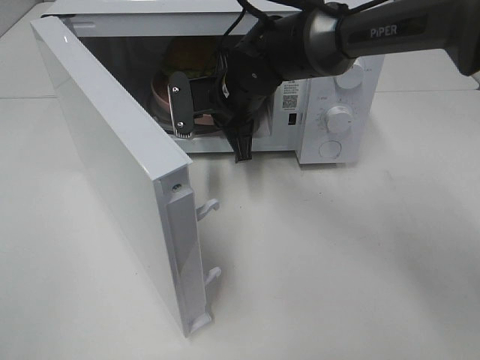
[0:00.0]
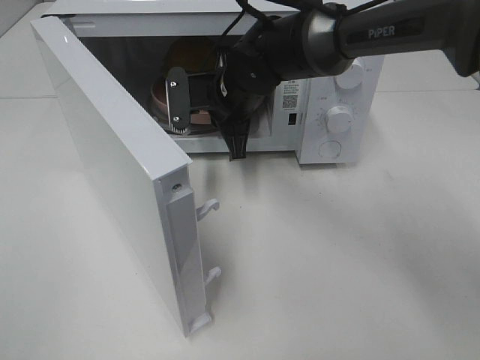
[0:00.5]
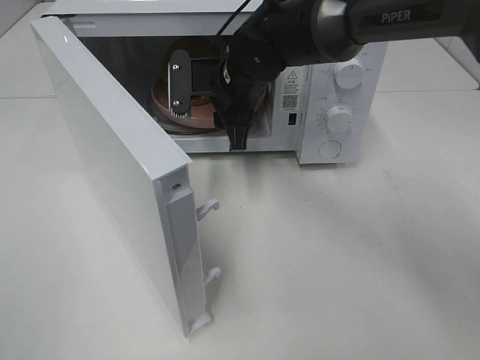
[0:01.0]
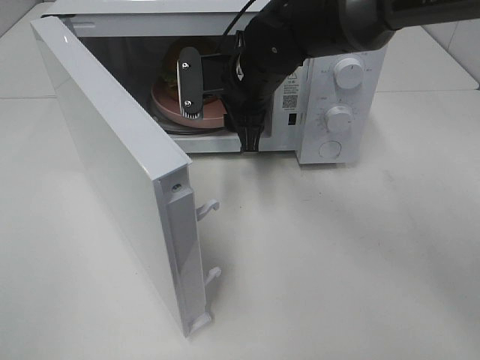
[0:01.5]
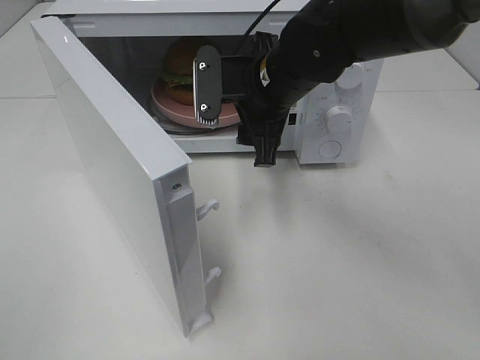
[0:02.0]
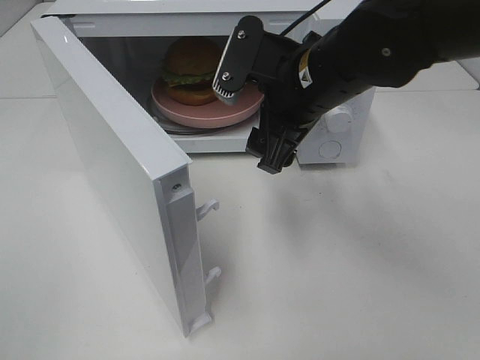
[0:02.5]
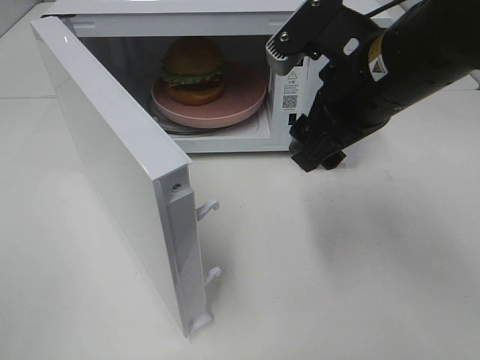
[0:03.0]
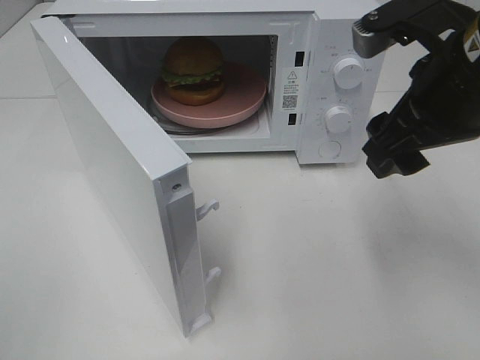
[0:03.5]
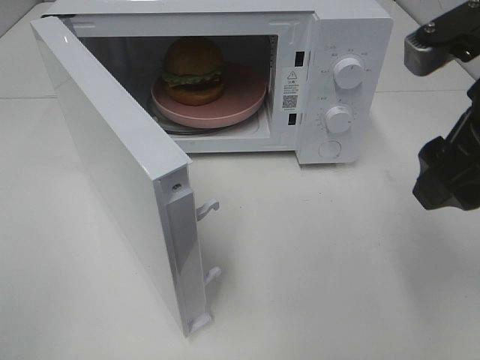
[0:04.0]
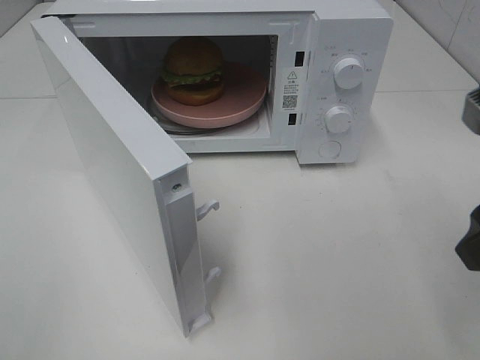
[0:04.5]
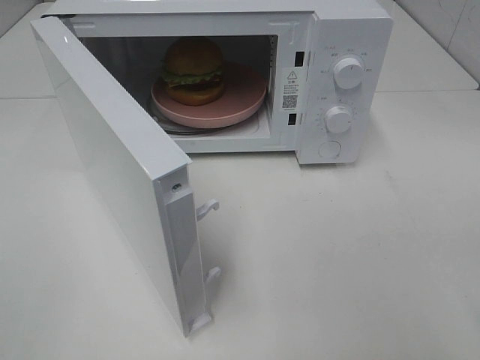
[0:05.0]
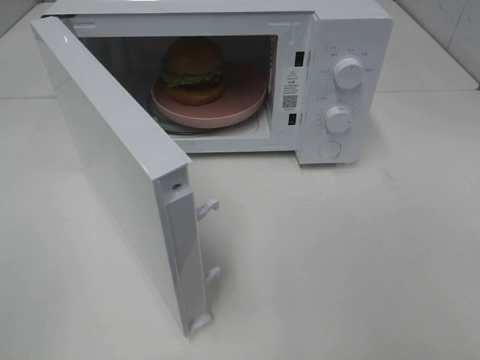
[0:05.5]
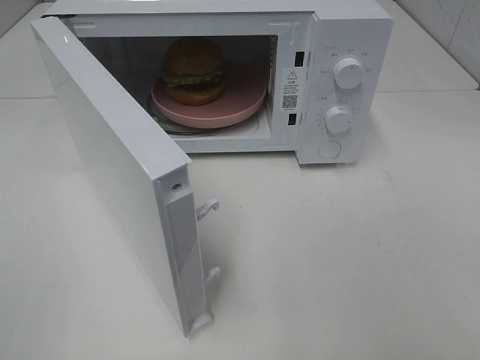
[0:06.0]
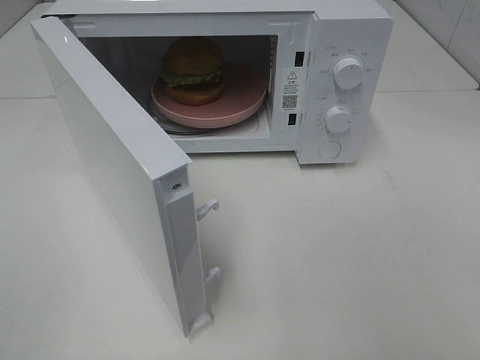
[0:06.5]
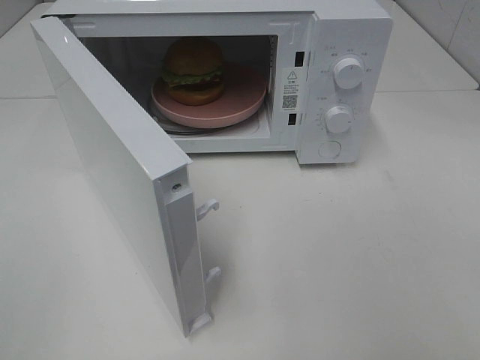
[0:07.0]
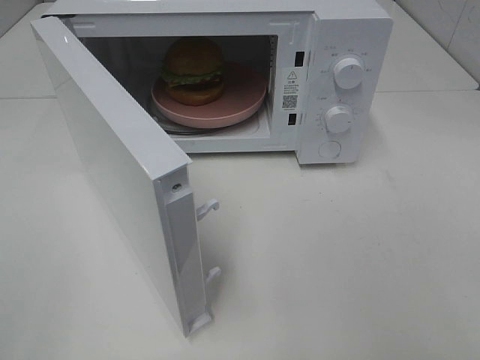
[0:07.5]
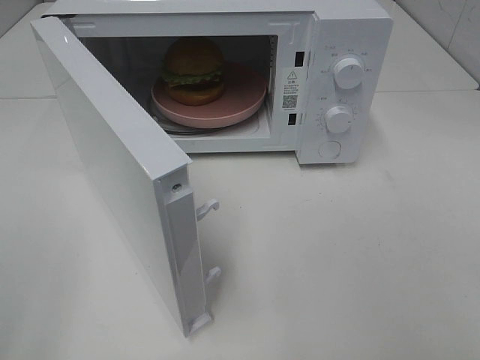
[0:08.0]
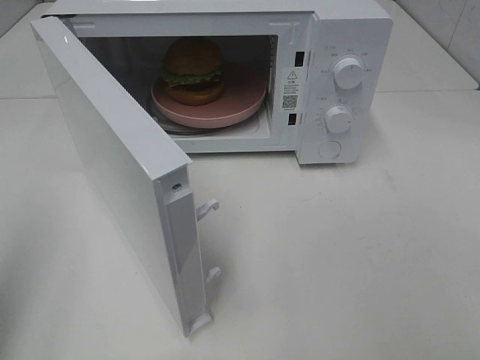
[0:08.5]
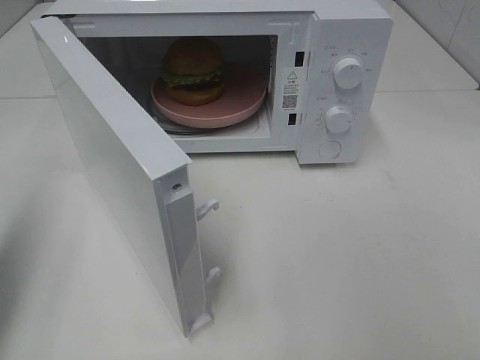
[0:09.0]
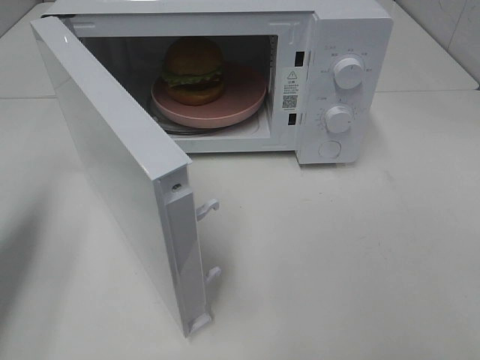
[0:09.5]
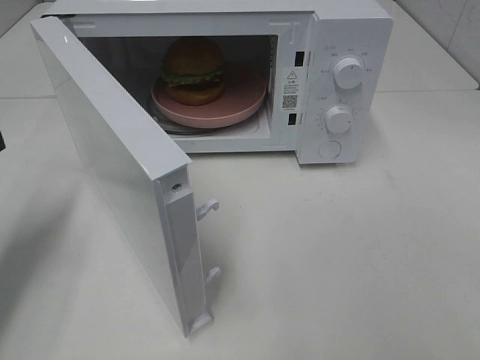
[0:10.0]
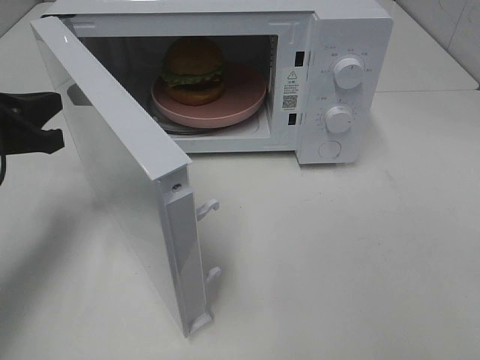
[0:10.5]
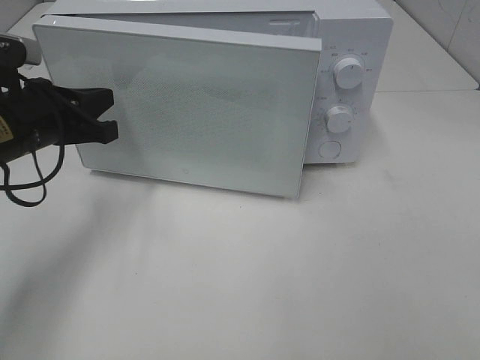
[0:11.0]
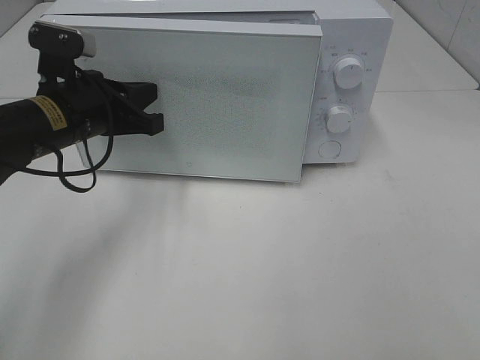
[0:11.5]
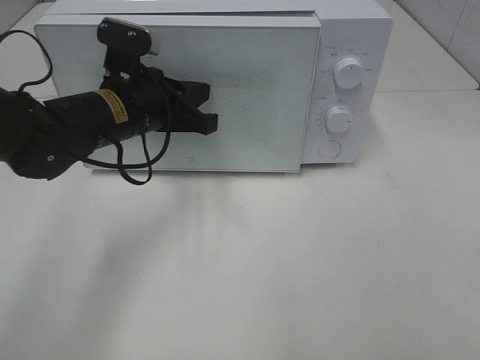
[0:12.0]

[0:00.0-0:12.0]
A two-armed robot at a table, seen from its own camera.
Task of the whole recording: Heat the burger.
0:00.0 to 0:02.0: The right gripper moves backward, some 5 cm, and opens its fingers.
0:02.0 to 0:04.0: The right gripper goes roughly 25 cm backward, to the right and upward.
0:04.0 to 0:06.0: The right gripper shifts about 20 cm backward and to the right.
0:08.0 to 0:10.0: The left gripper shifts some 25 cm forward and downward, and closes up.
0:10.0 to 0:12.0: The left gripper shifts some 20 cm to the right and forward.

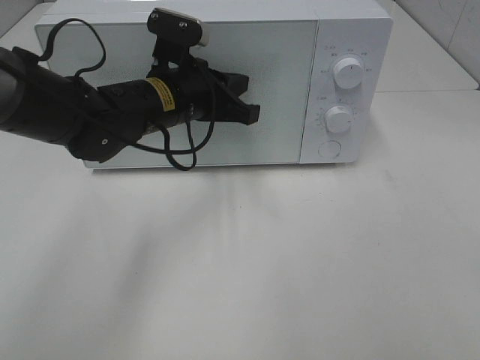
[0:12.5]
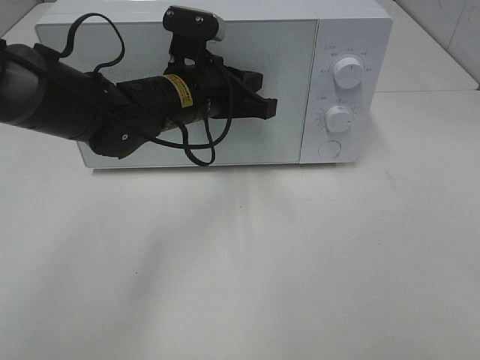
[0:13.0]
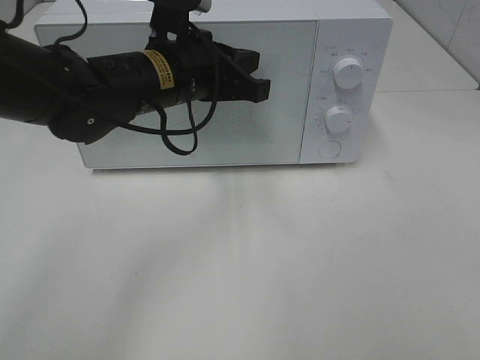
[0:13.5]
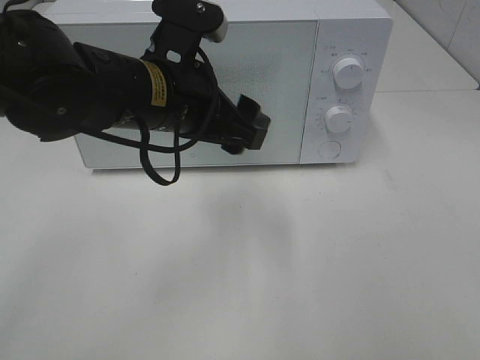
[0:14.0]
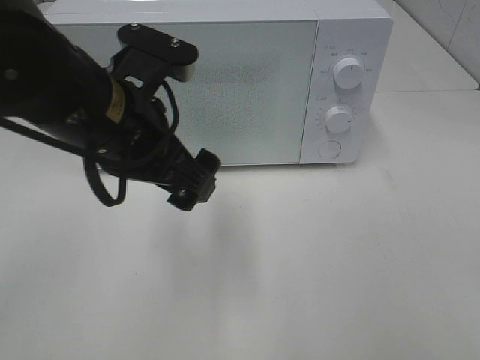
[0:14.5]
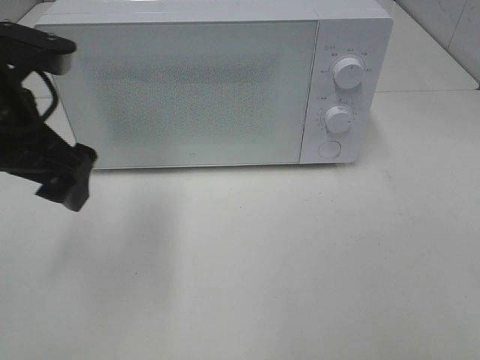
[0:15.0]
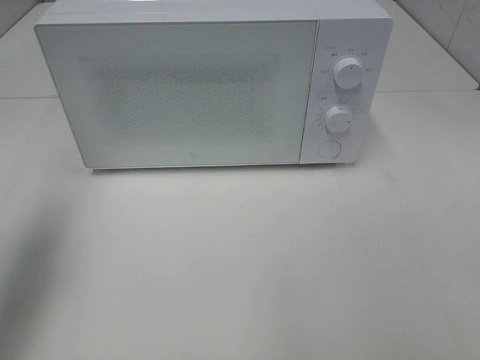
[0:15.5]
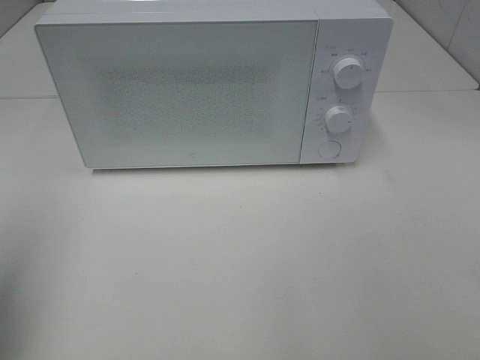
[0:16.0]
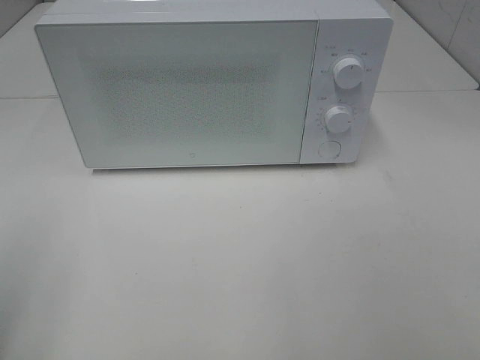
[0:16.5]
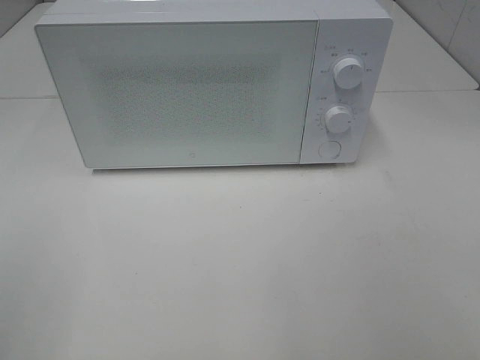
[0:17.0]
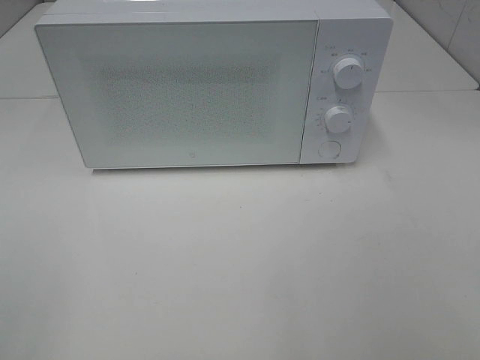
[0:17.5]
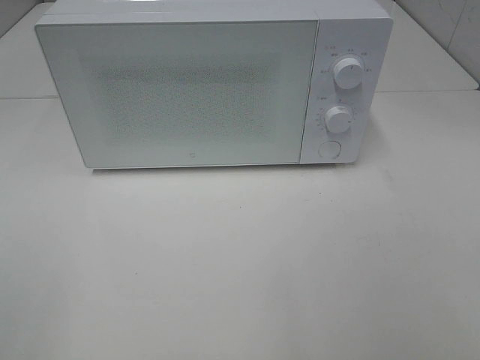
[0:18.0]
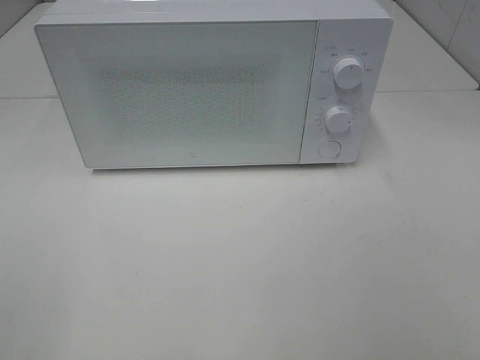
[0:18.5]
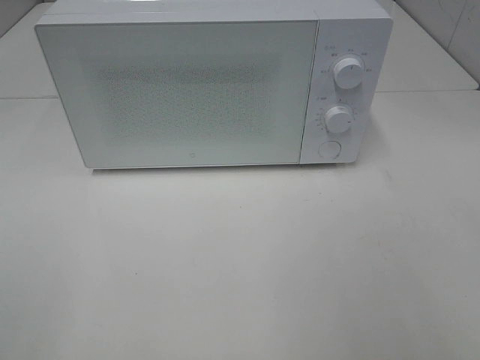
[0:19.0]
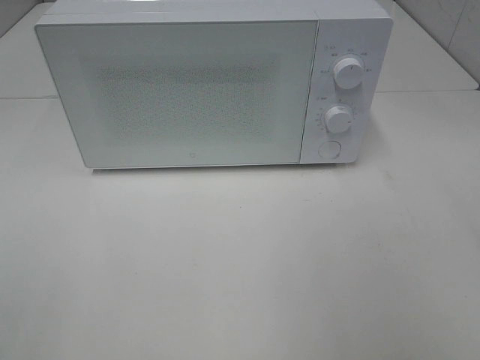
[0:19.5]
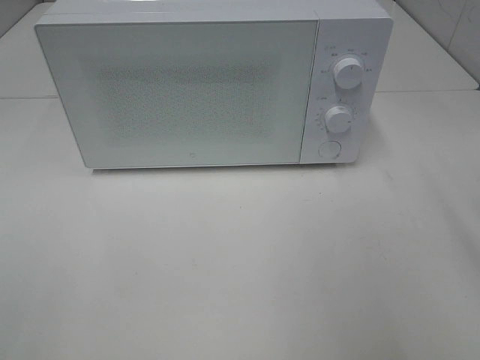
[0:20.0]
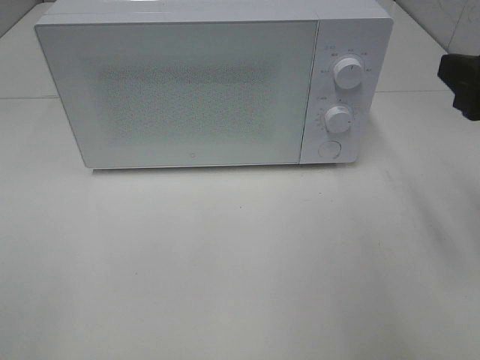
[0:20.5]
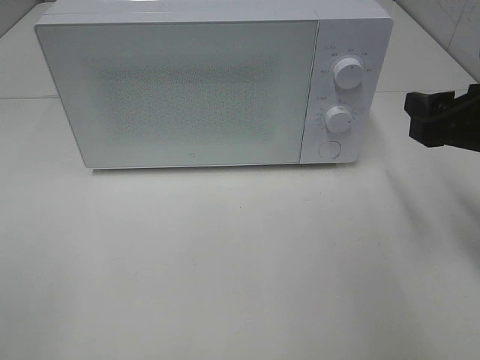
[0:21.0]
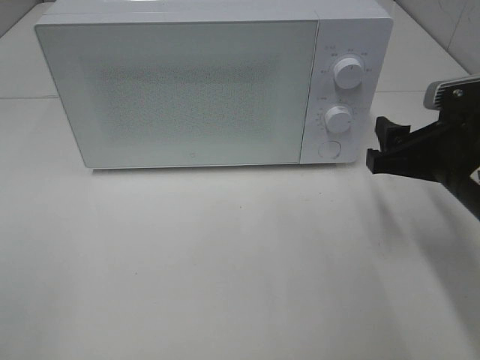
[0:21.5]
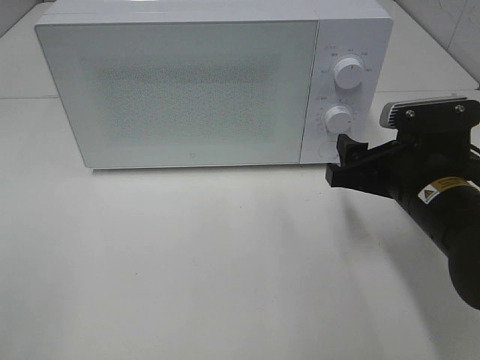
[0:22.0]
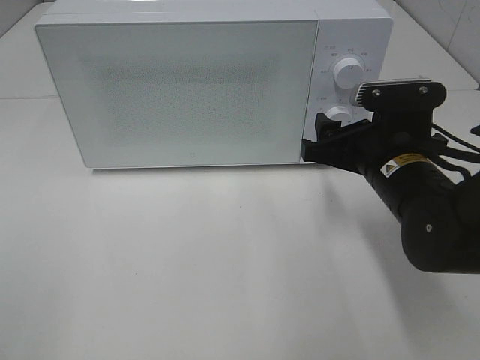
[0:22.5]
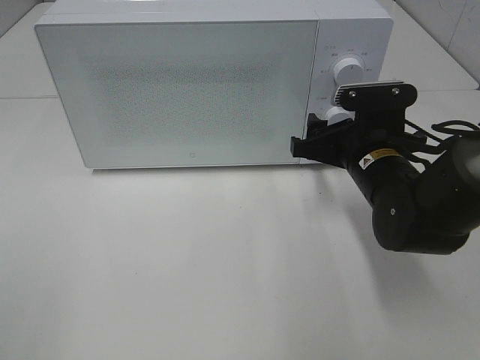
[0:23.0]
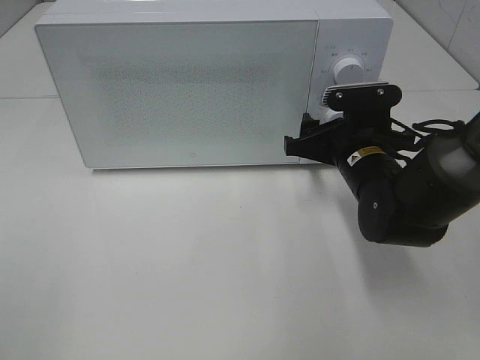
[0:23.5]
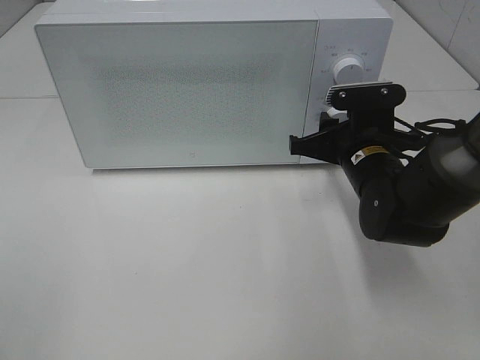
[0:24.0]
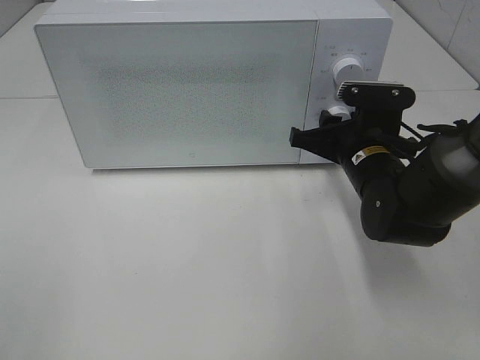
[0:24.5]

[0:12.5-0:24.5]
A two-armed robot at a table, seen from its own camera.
Task of the whole recording: Heat the burger.
0:12.5 to 0:14.5: The left gripper heads backward and upward, covering about 15 cm, and opens up.
0:14.5 to 0:16.5: The left gripper moves to the left and backward, some 25 cm.
0:18.5 to 0:20.5: The right gripper heads forward, covering roughly 20 cm.
0:20.5 to 0:22.5: The right gripper heads downward, to the left and forward, covering approximately 15 cm.
0:22.5 to 0:24.5: The right gripper moves roughly 5 cm.

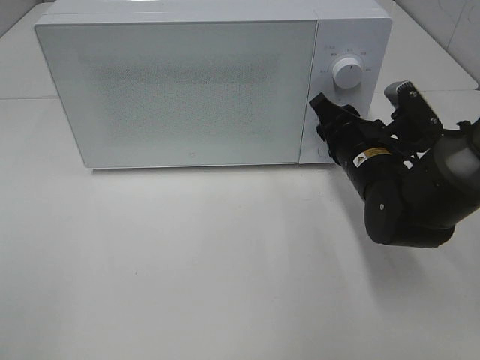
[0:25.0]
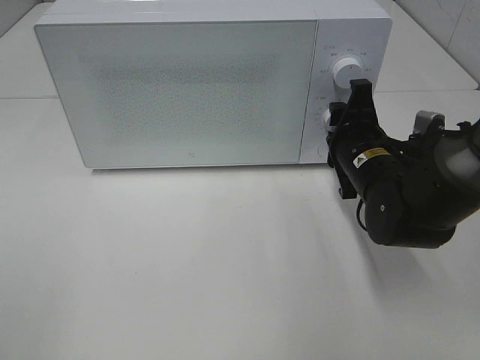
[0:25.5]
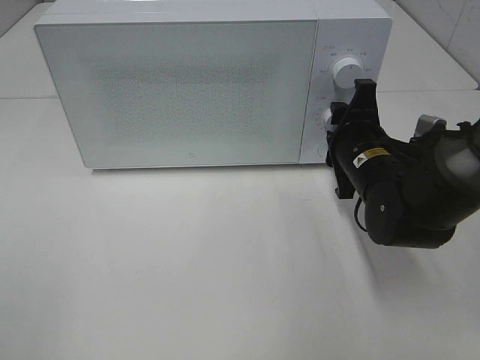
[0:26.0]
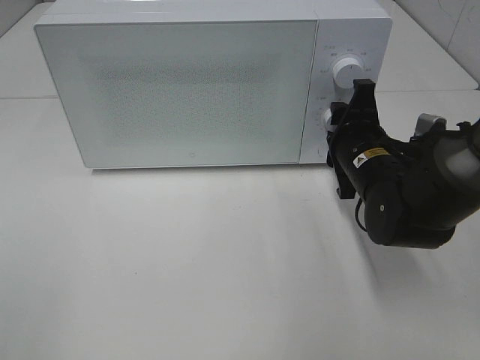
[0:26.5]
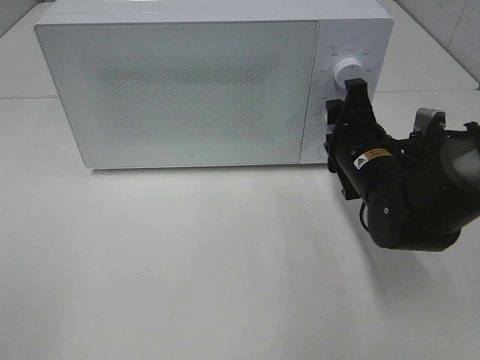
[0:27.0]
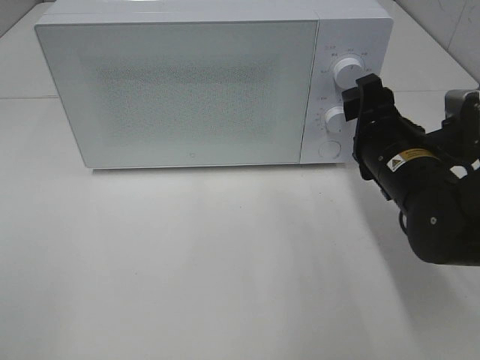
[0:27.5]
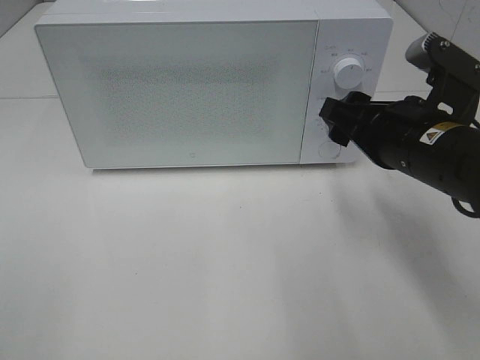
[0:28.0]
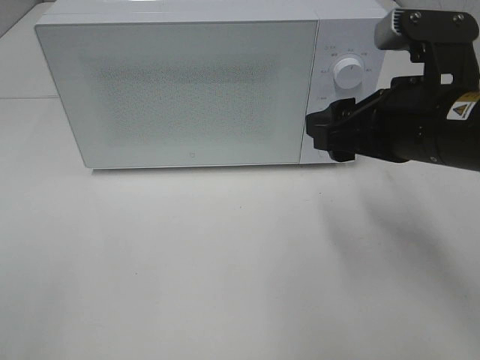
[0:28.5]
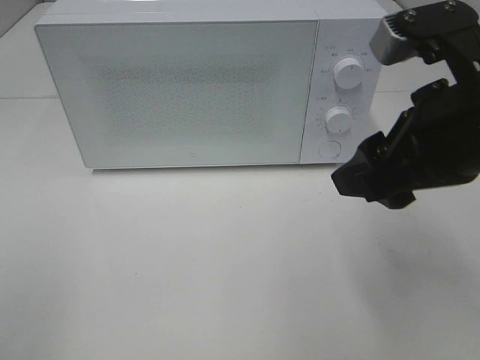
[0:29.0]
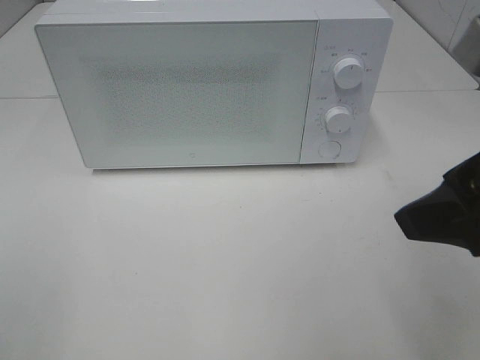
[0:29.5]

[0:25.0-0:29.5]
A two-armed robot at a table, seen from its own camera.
Task of the whole recording: Heat the burger.
Step, 0:25.0 to 0:27.0: Right hand: twist timer button.
0:27.0 to 0:29.5: The right gripper goes approximately 25 cm upward and backward.
